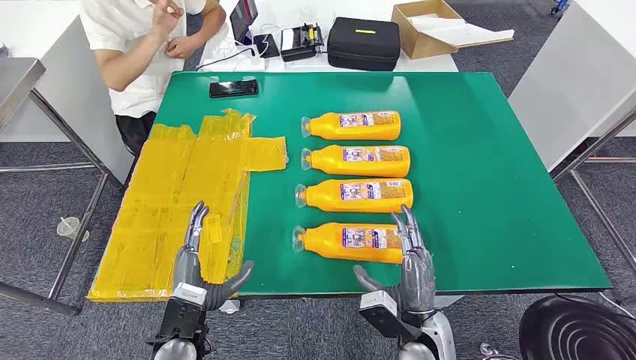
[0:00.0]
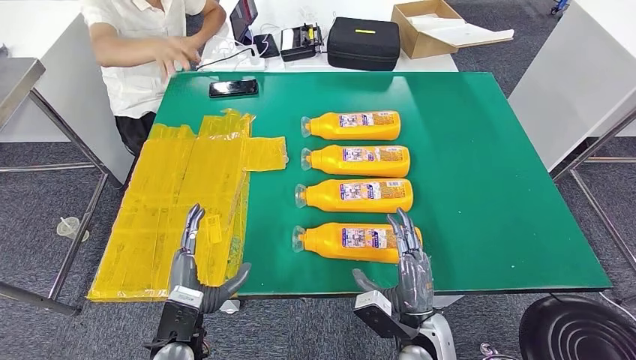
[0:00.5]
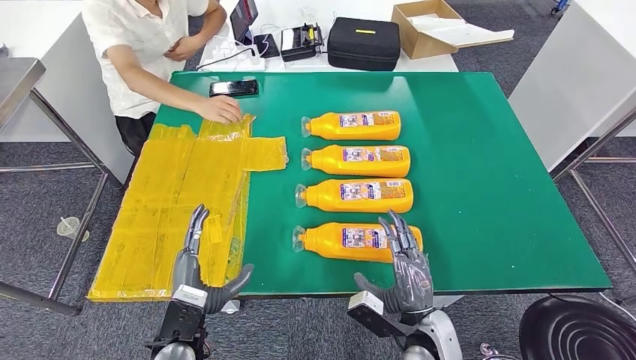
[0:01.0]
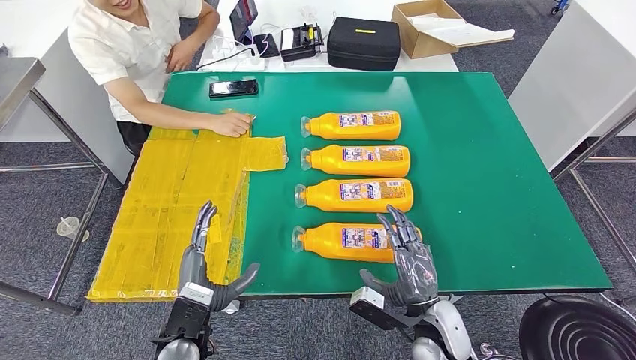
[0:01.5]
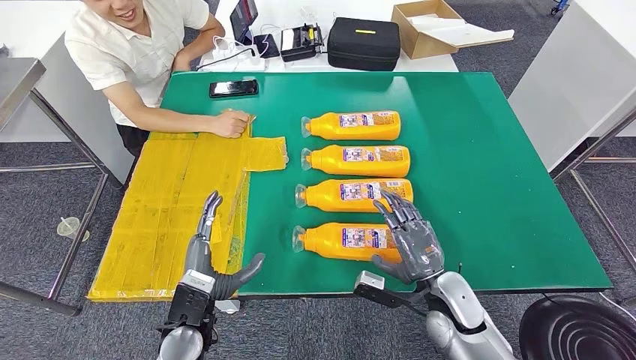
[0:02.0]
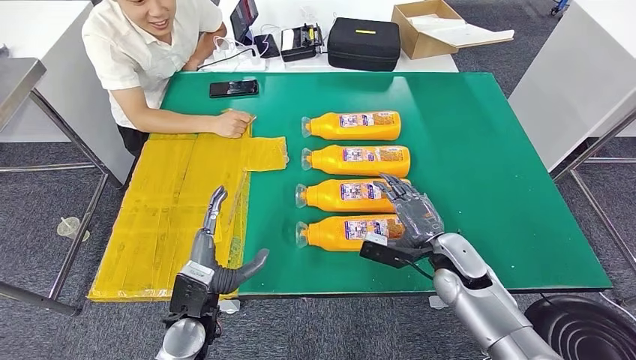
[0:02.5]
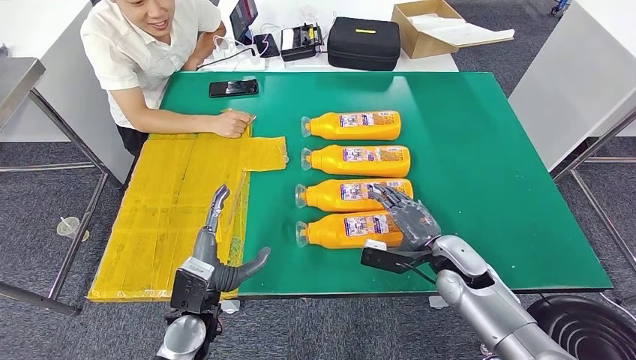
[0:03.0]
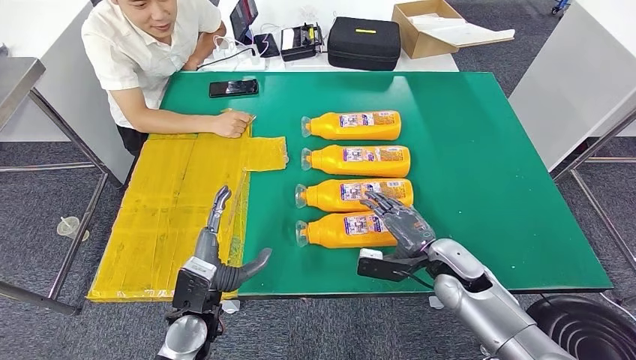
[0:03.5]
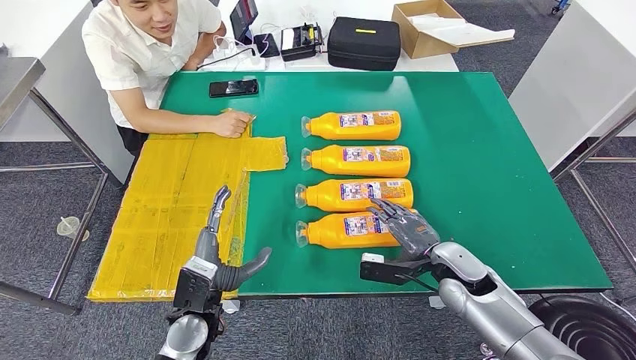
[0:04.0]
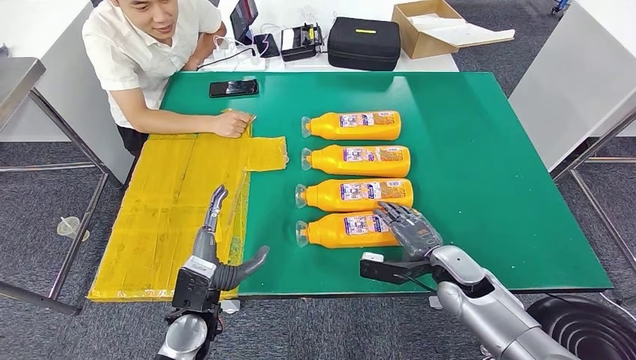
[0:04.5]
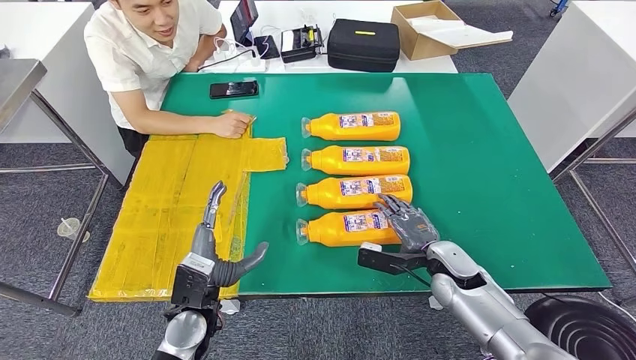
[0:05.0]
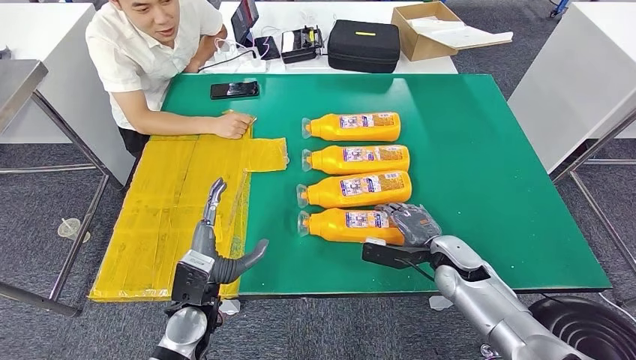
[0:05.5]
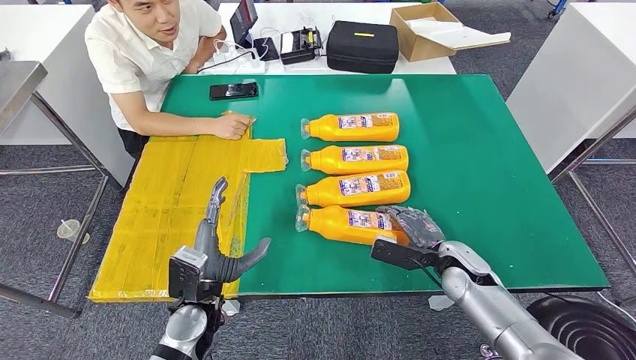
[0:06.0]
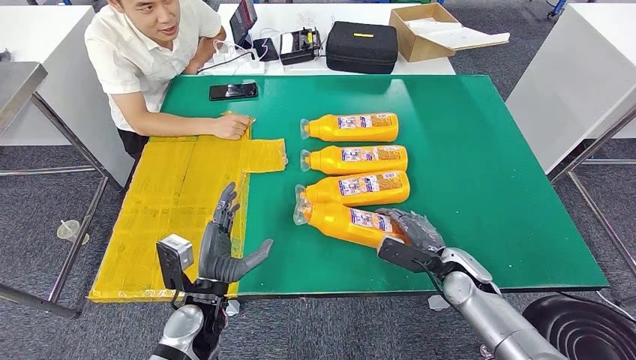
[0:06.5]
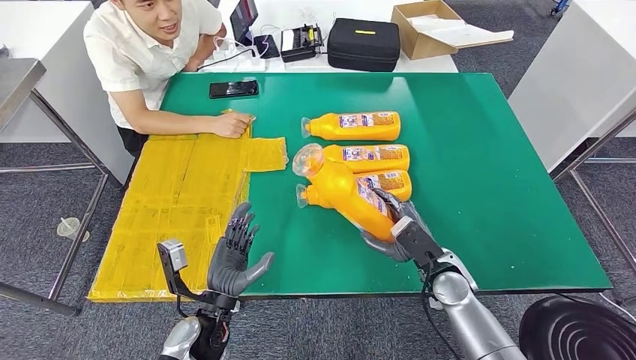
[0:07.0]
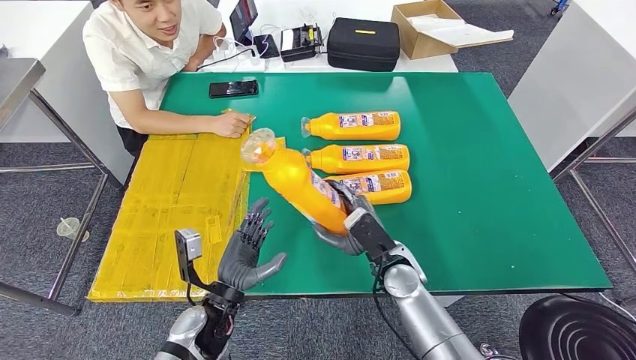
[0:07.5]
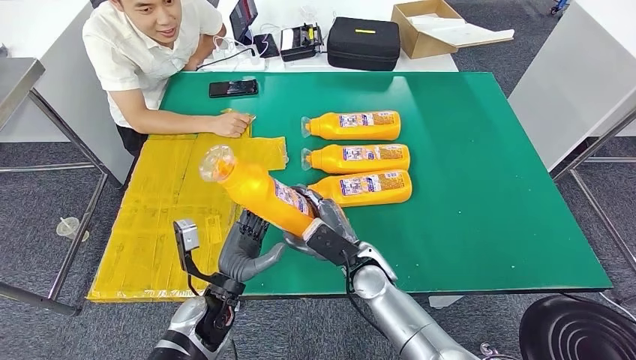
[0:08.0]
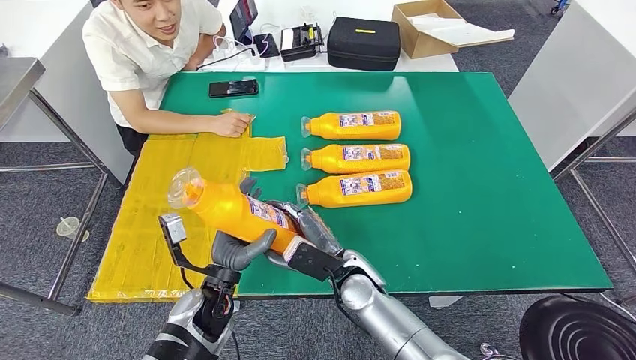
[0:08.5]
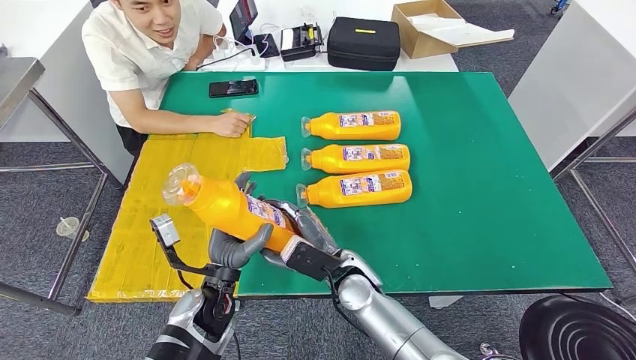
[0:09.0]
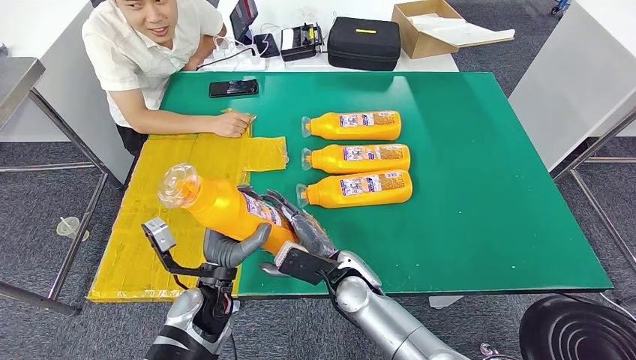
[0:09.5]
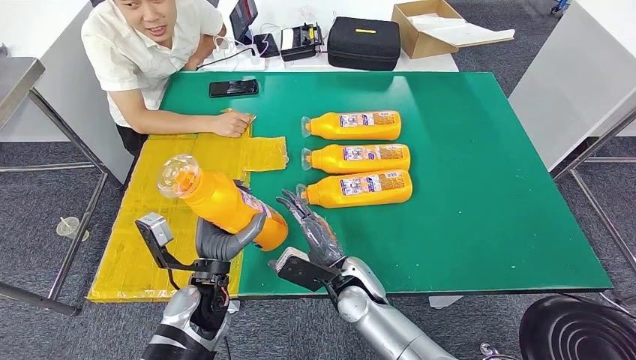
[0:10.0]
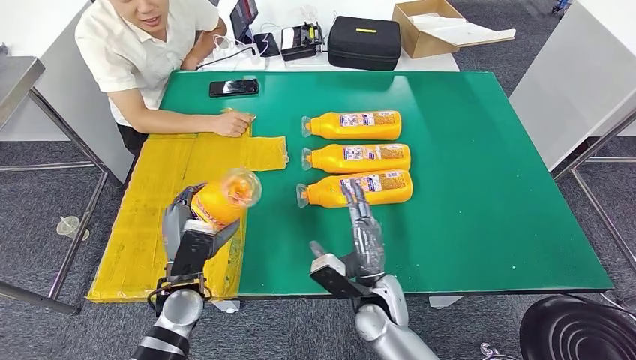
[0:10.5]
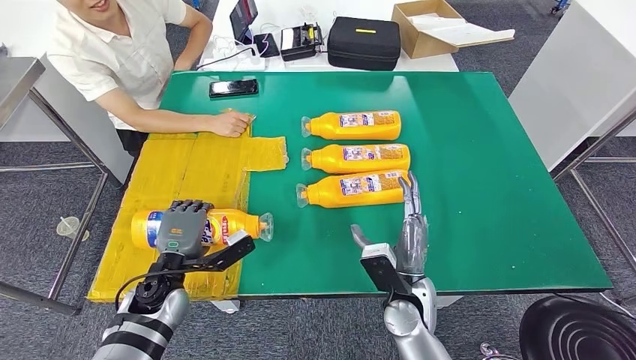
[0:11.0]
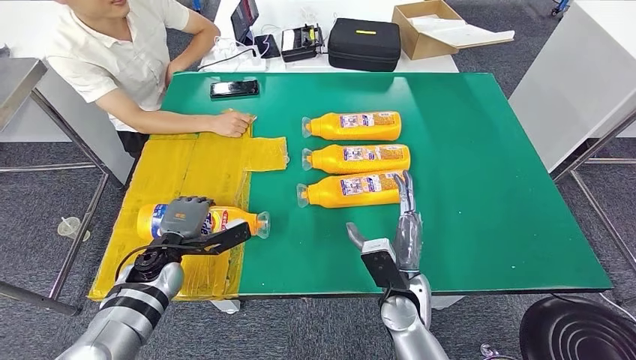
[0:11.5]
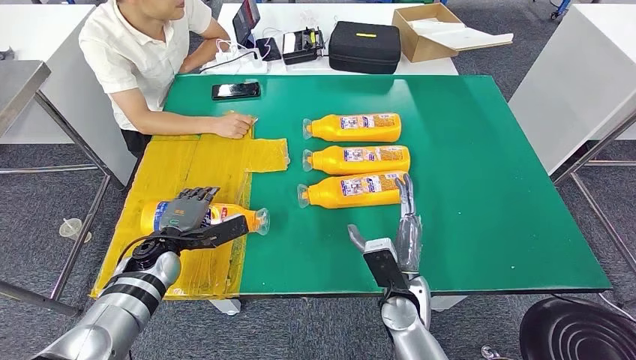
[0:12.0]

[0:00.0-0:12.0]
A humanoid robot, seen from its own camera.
Step, 0:00.0 to 0:08.5: Take the fast-moving consumer goods bottle from the table.
0:02.0 to 0:04.0: The right hand changes place by roughly 5 cm.
0:04.0 to 0:06.0: There are only small adjustments of the hands.

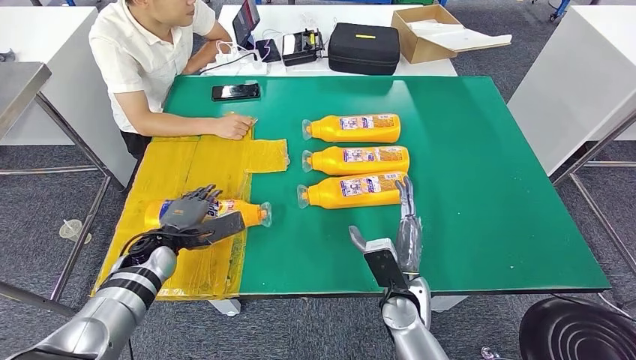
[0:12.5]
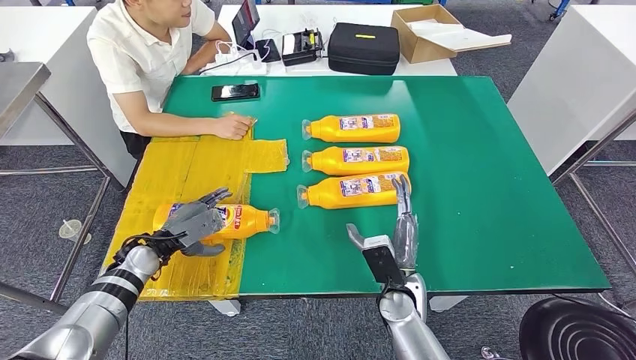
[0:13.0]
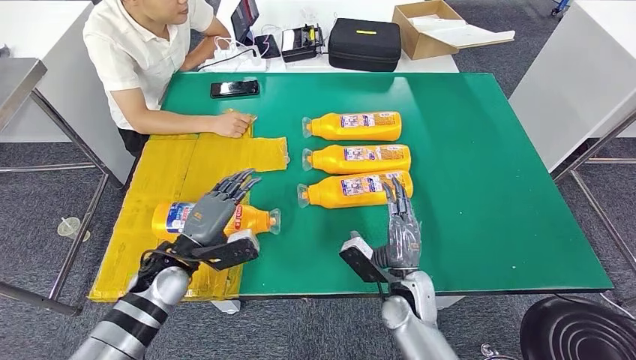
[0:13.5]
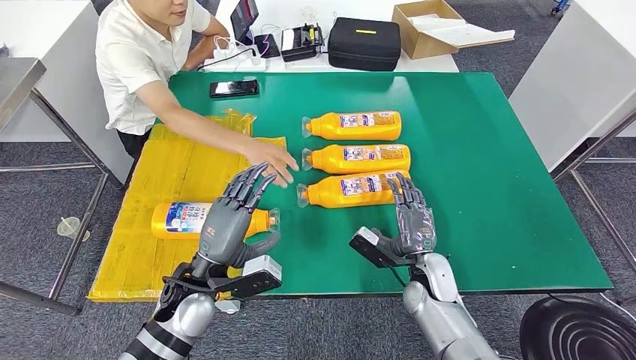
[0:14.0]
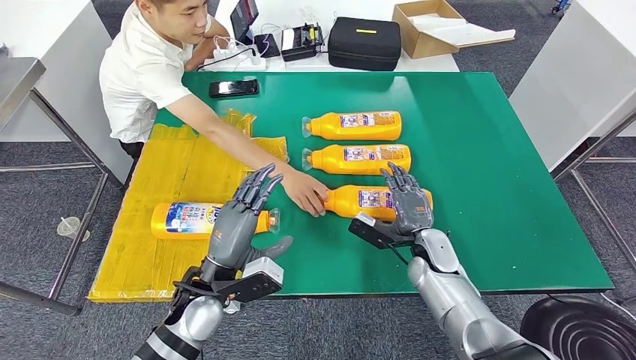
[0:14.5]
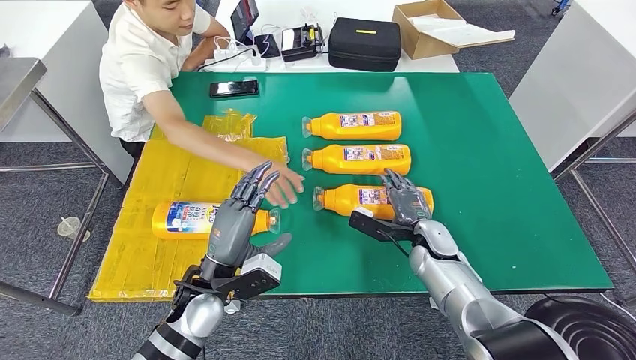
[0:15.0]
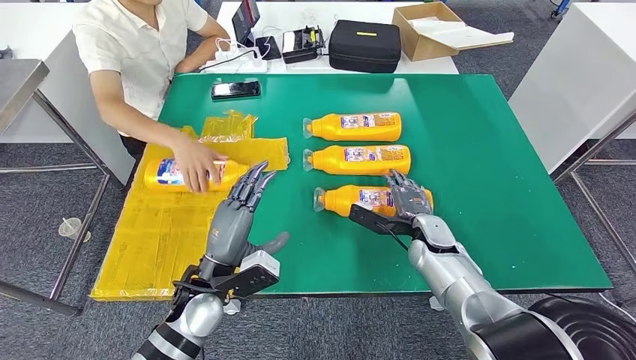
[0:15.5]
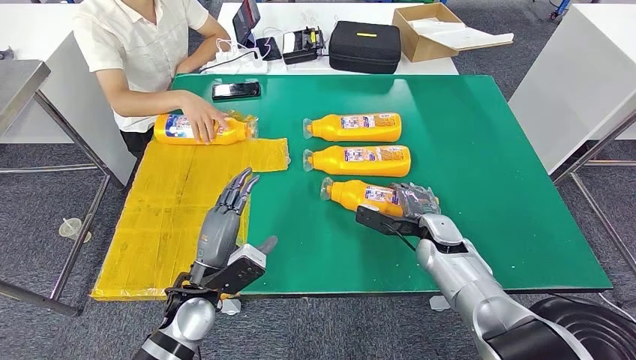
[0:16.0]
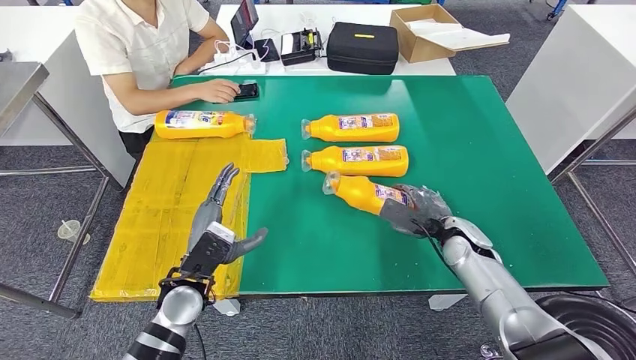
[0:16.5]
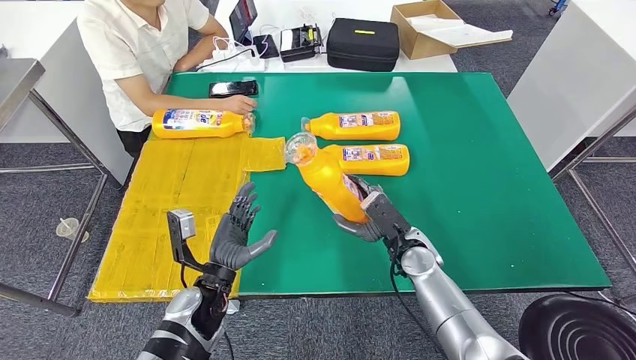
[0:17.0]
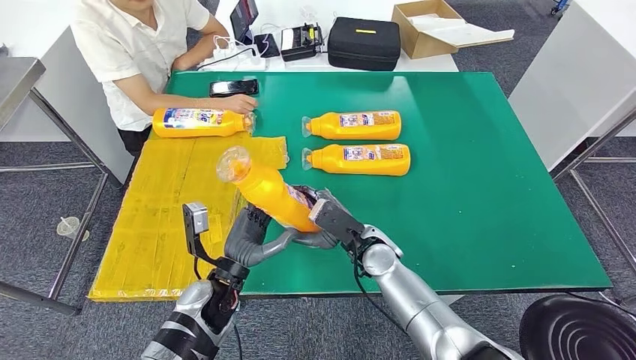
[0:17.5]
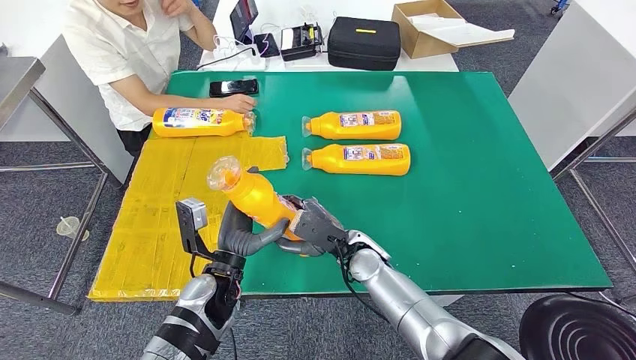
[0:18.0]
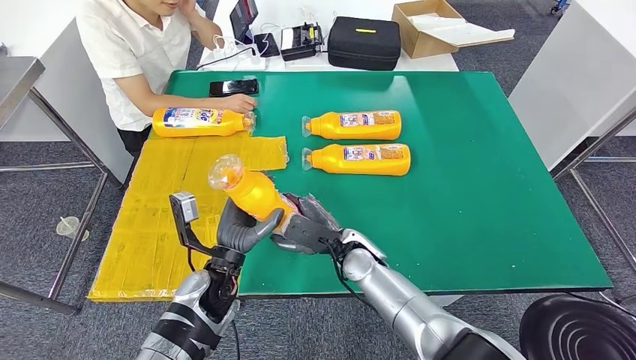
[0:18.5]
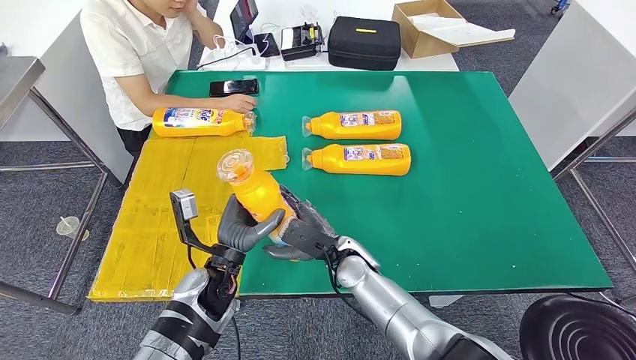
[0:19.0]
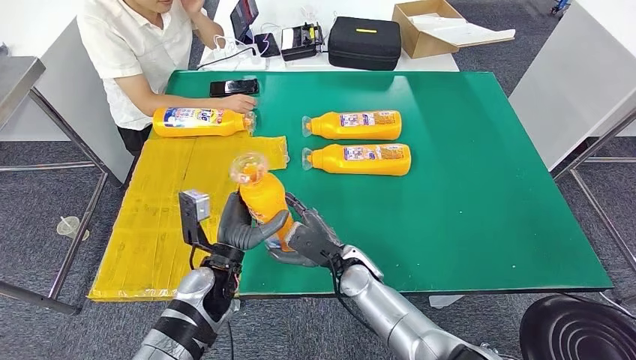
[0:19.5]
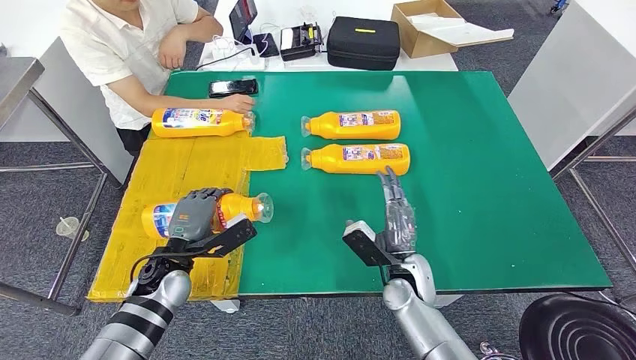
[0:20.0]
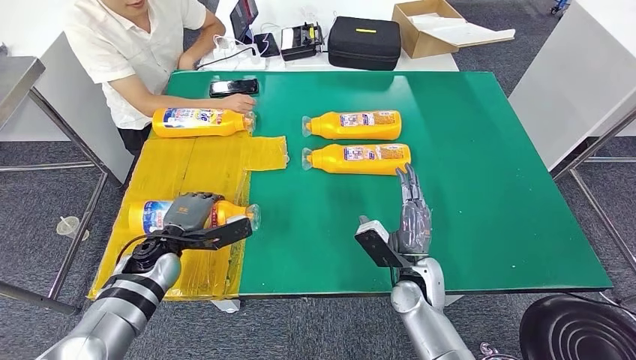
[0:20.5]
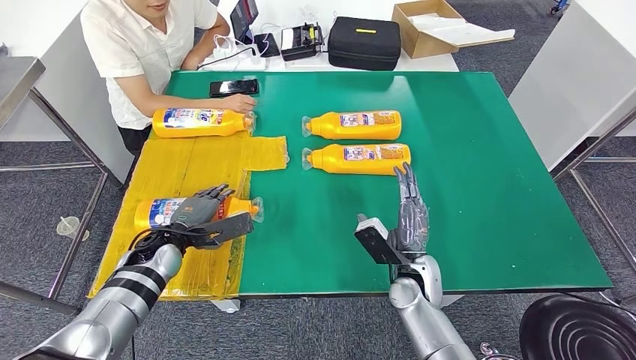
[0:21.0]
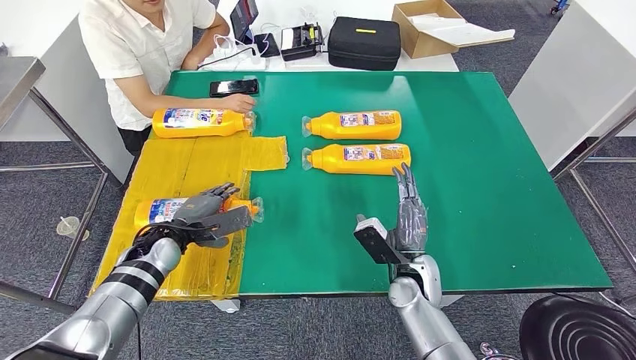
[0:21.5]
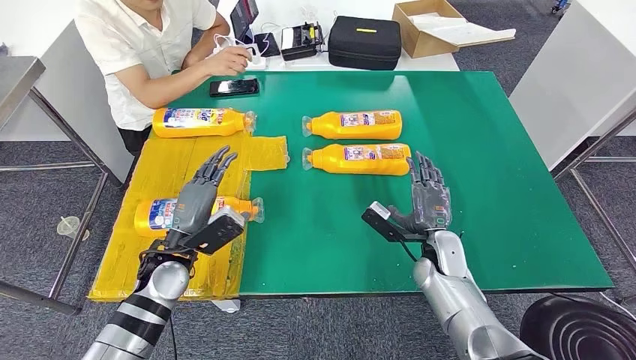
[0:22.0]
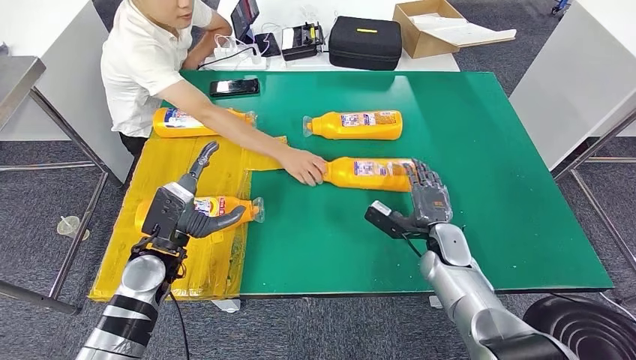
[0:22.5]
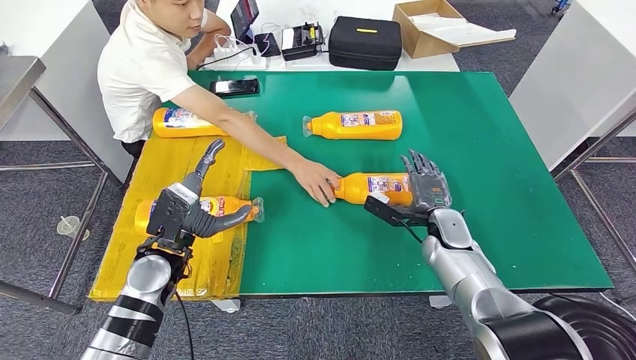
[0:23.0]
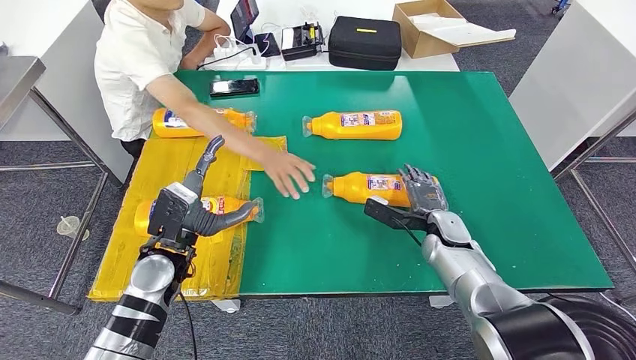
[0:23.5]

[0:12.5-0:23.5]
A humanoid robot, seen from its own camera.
Step, 0:12.5 to 0:18.0: Pick up the fast-moving consumer goods bottle from the table.
Step, 0:18.5 to 0:21.0: Flip the fast-moving consumer goods bottle to the front side.
0:18.0 to 0:20.0: The right hand goes approximately 5 cm to the right. The left hand goes roughly 10 cm to the left.
0:20.0 to 0:21.5: The left hand moves forward, some 5 cm.
